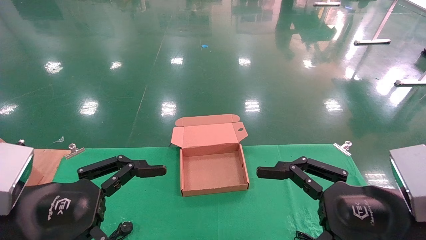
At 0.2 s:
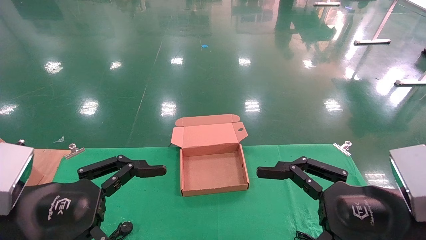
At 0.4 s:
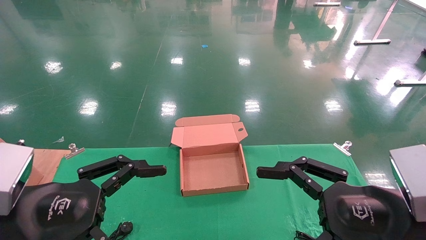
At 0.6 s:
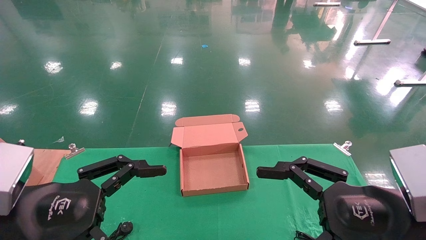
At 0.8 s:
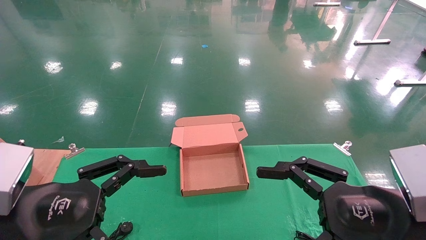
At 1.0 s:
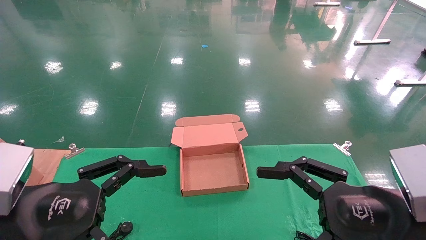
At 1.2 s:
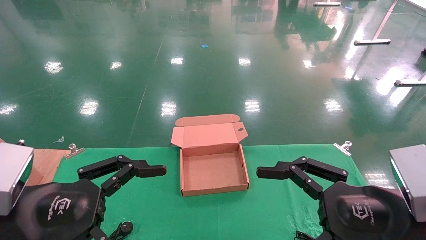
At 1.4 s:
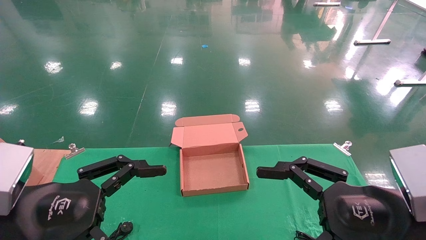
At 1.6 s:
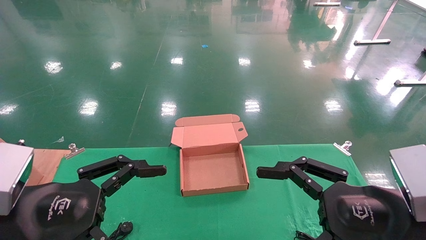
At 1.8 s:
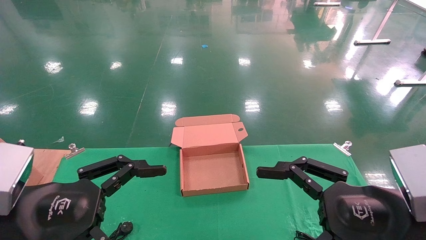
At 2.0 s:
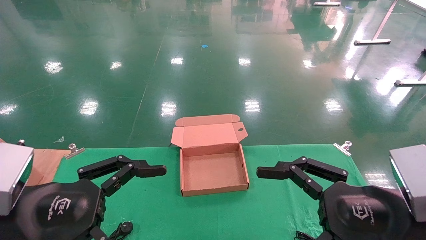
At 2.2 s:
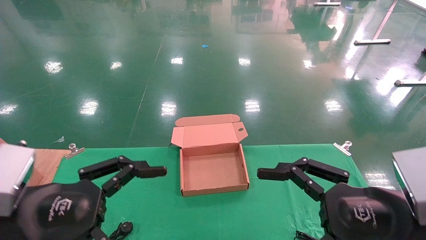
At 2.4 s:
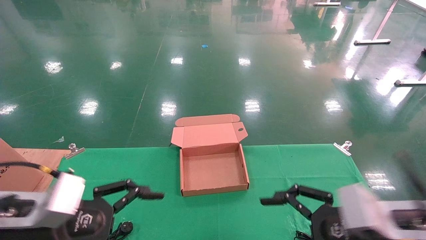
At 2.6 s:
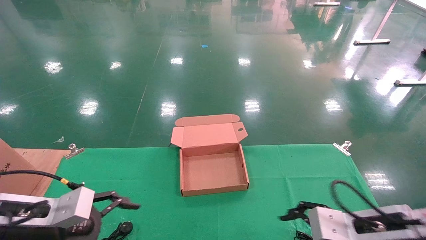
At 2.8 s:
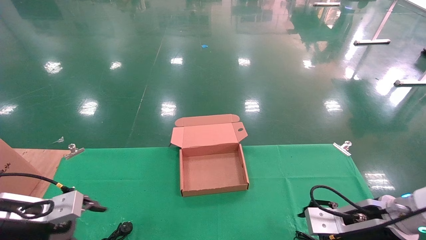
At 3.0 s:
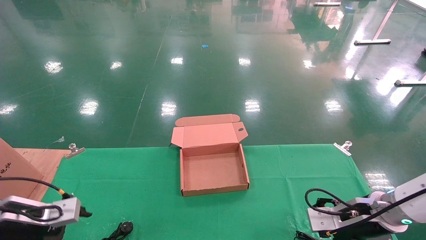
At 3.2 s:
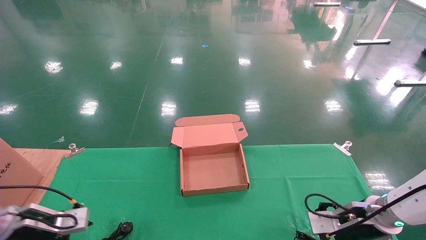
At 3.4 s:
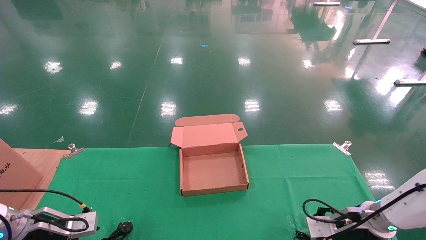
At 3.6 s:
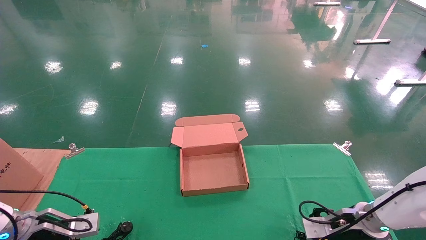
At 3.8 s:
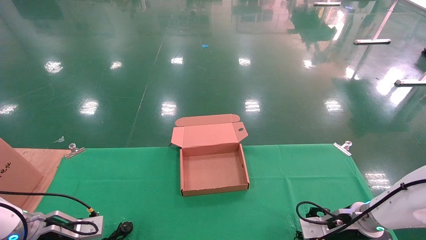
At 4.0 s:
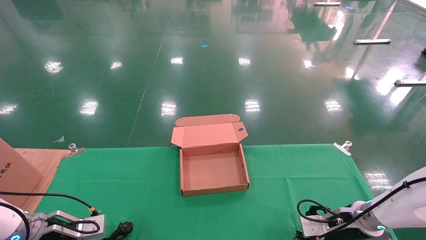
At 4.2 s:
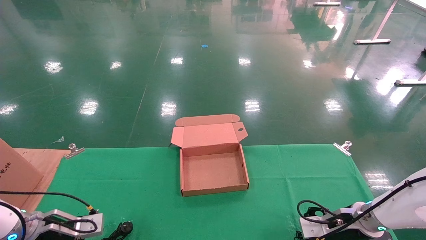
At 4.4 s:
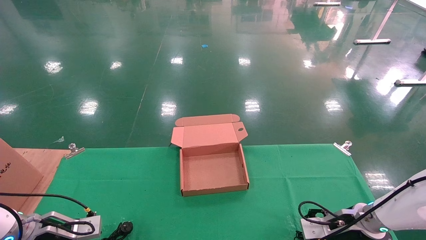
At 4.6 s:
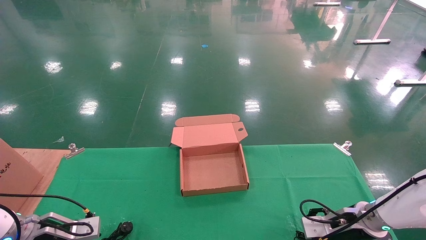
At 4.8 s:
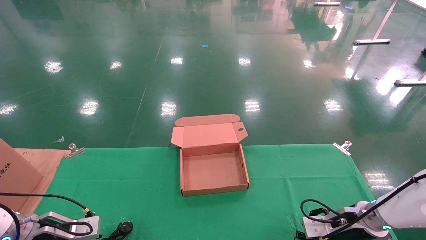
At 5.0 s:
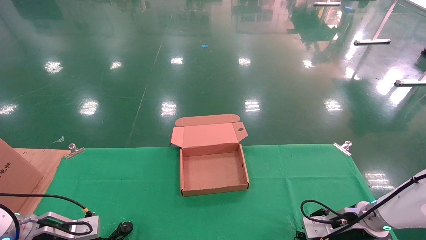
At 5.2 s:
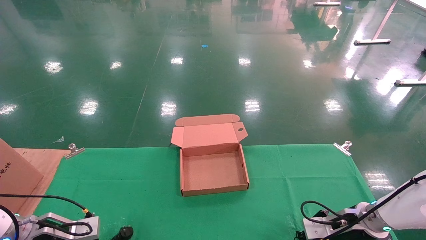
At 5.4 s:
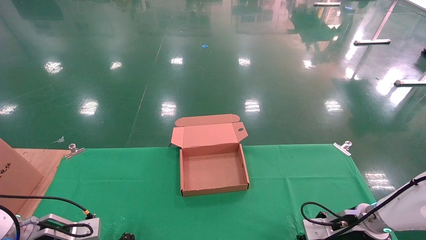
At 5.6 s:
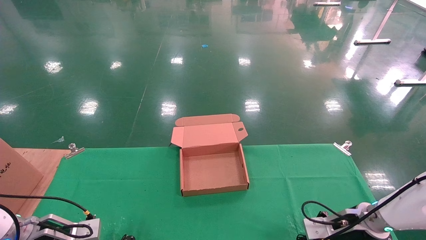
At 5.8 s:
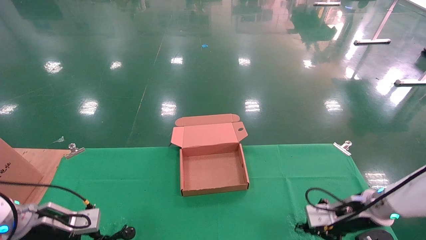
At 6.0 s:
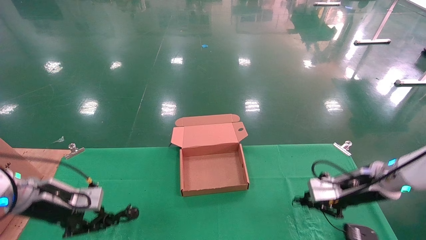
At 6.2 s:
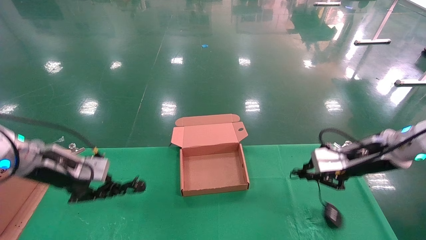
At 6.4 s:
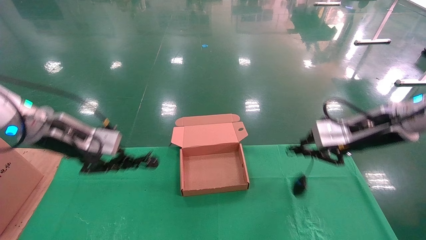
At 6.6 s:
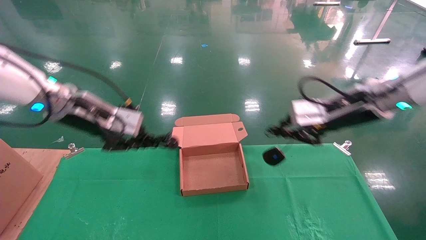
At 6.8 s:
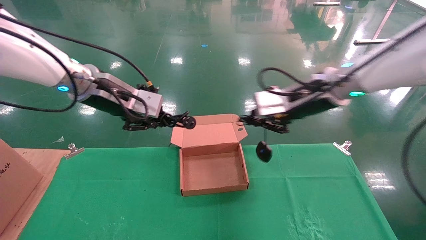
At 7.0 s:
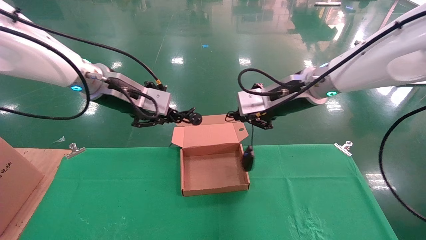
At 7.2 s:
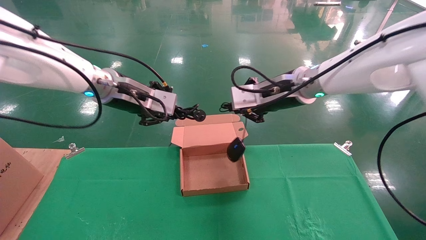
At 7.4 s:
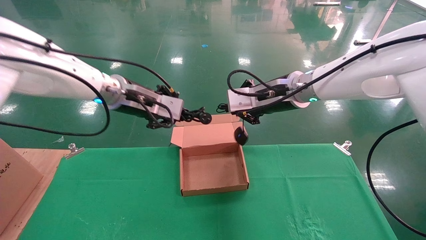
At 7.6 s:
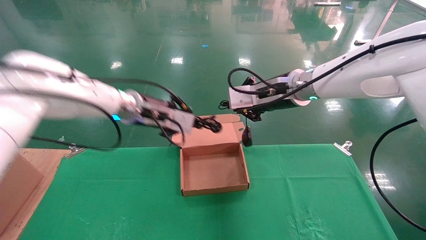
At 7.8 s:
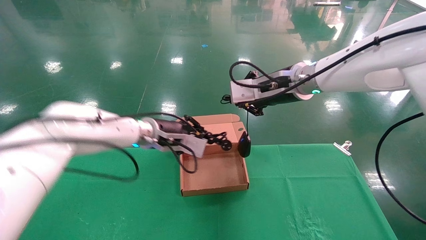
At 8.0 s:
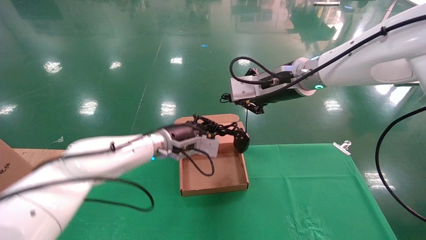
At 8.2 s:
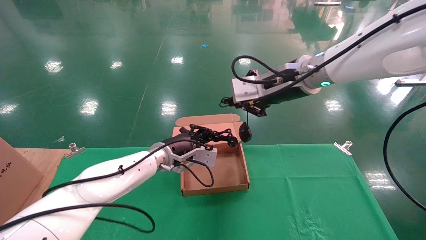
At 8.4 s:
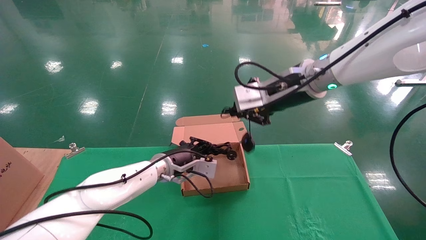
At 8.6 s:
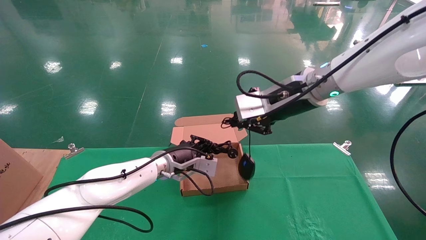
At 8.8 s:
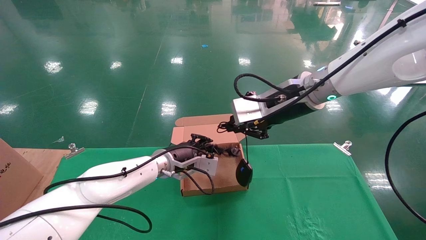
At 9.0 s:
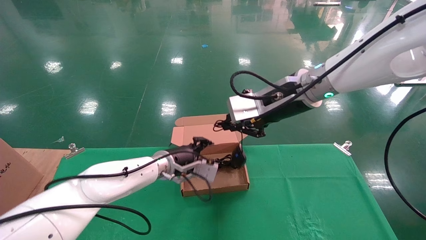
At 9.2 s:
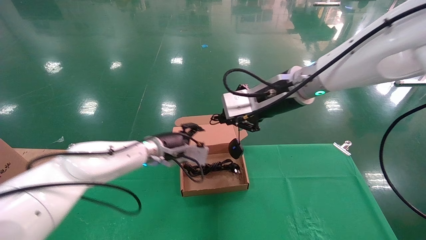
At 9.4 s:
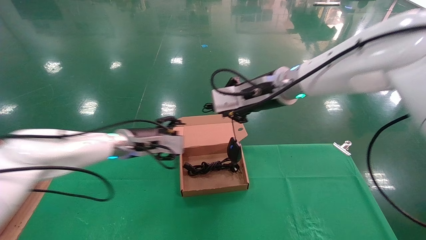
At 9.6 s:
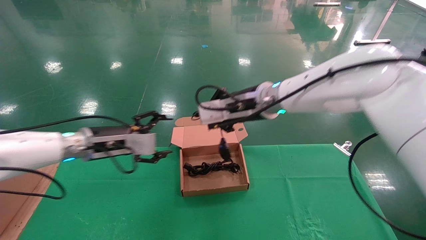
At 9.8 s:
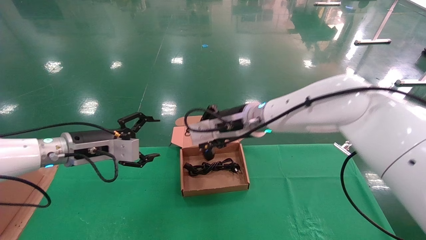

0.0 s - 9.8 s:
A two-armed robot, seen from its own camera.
Step, 2.4 s - 5.8 s: Grab and lift both the mouse and power cord from the accessory packaging area at the same time.
0.0 s - 1.4 s: Both grippers stay put.
1.4 s - 2.8 s: The right gripper heads forward and downward, covering roughly 15 cm. The left gripper shifts some 20 cm forward, to the left and downward.
2.8 s - 4.2 s: The left gripper moves downward and forward, roughly 10 cm, while the right gripper goes approximately 10 cm forward and downward.
4.2 s - 5.6 s: The right gripper closes its fingers. Meanwhile the left gripper closes up.
5.6 s - 7.0 s: The right gripper travels upward and to the left by some 30 cm. The left gripper shifts approximately 35 cm upward and to the right.
7.0 s - 8.4 s: The left gripper goes roughly 20 cm downward and to the right.
8.4 s - 9.8 s: The right gripper goes roughly 10 cm to the left and downward. Meanwhile the left gripper shifts roughly 20 cm to the left and backward, and opens.

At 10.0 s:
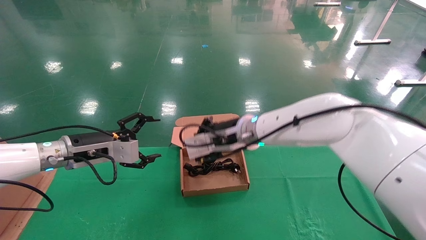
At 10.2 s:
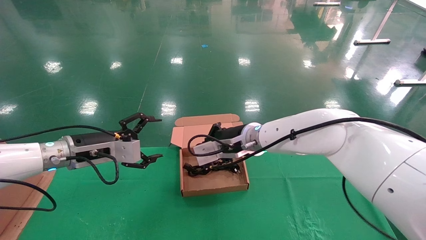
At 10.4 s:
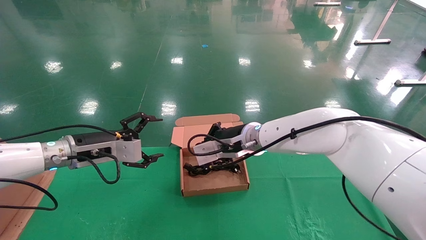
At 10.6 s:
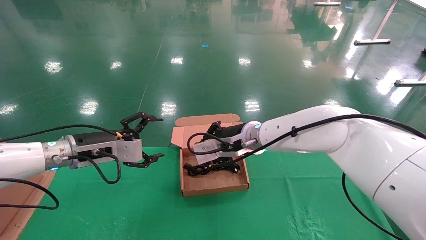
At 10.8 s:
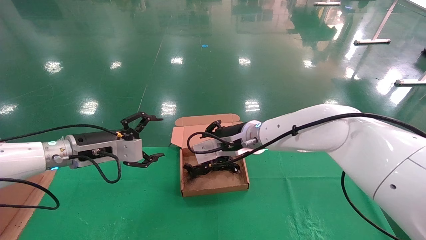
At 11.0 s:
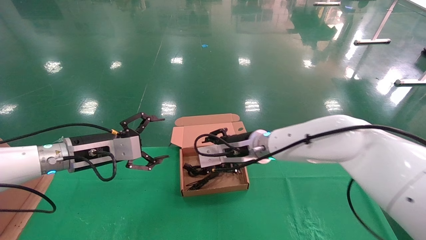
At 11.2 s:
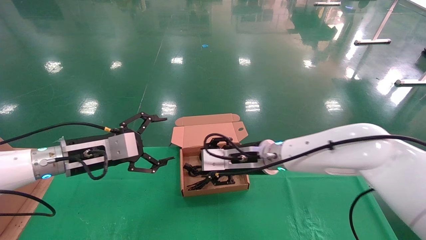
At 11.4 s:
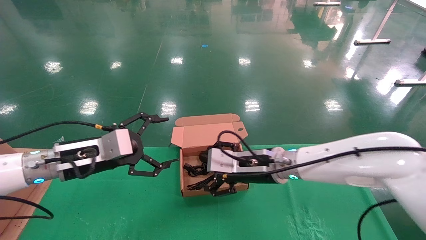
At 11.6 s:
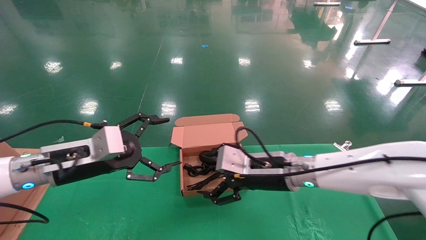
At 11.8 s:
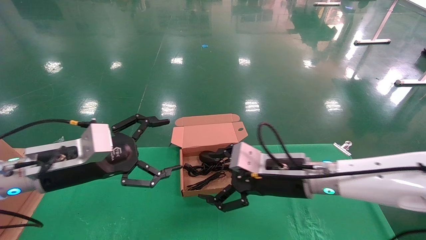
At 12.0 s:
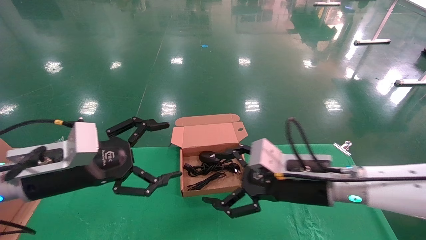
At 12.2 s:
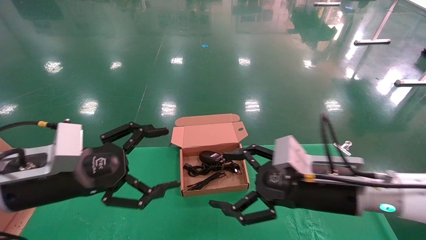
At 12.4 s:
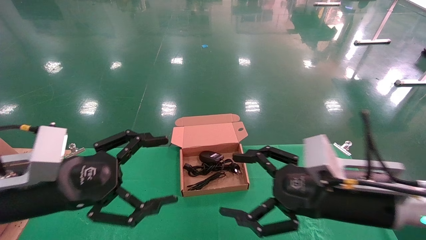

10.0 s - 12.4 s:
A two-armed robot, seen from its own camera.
10.0 s - 11.2 s: The right gripper shifts roughly 5 cm downward, and opens up.
11.2 s - 12.4 s: The left gripper travels backward by some 15 cm. Meanwhile the right gripper shifts roughly 20 cm backward and to the right, and opens up.

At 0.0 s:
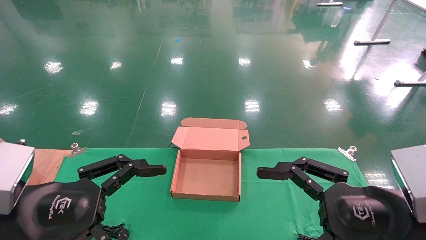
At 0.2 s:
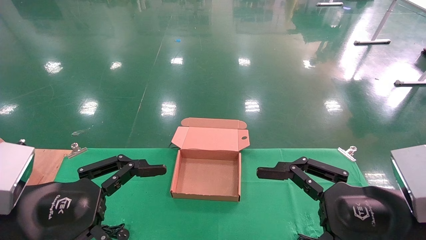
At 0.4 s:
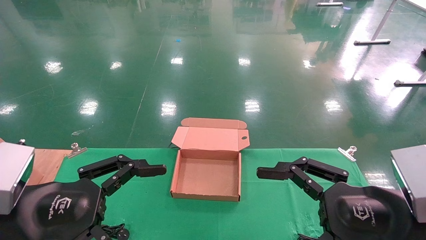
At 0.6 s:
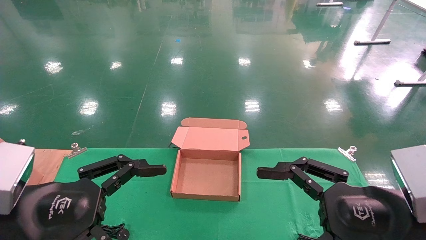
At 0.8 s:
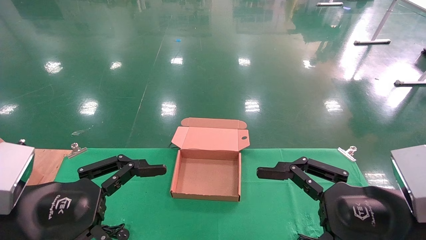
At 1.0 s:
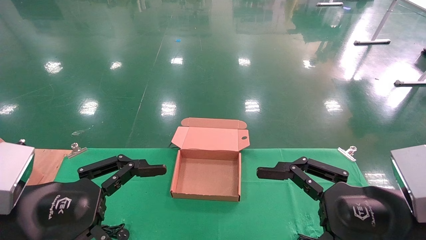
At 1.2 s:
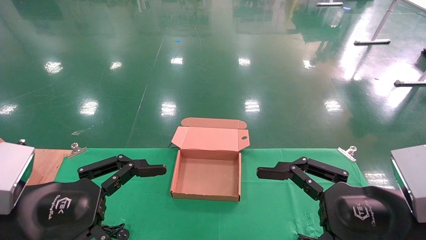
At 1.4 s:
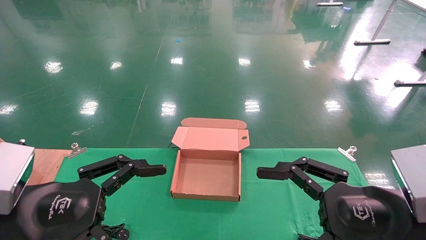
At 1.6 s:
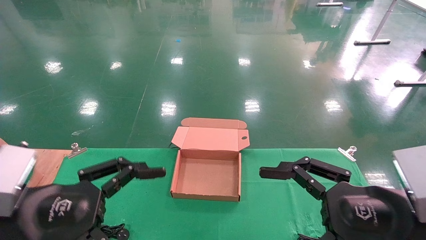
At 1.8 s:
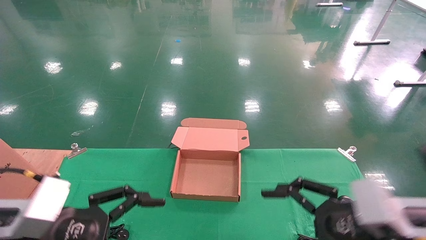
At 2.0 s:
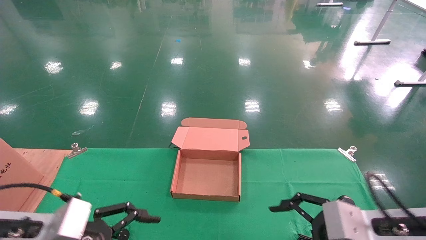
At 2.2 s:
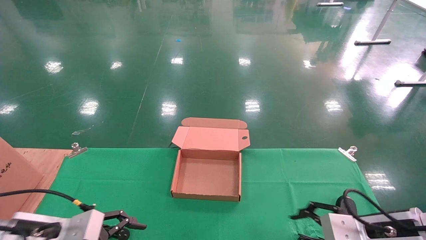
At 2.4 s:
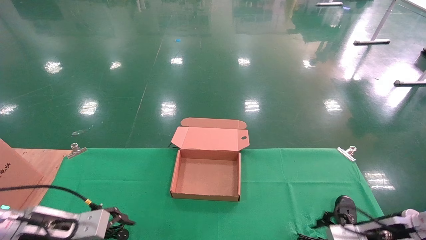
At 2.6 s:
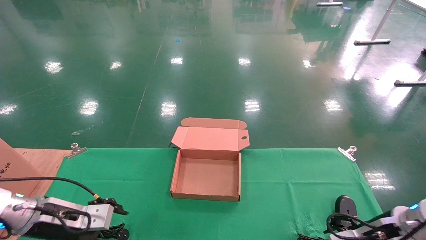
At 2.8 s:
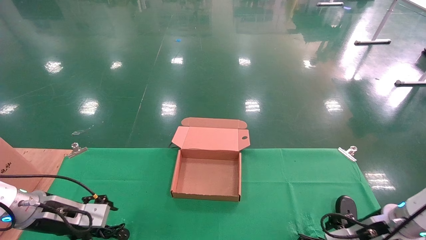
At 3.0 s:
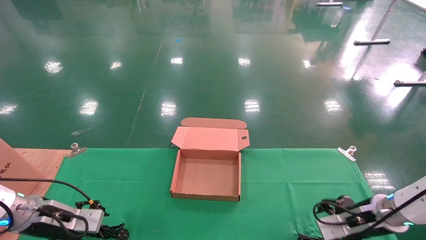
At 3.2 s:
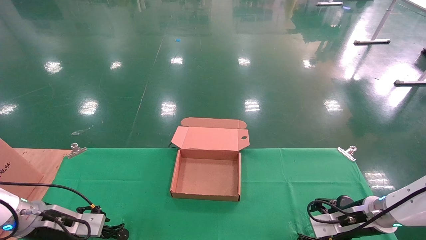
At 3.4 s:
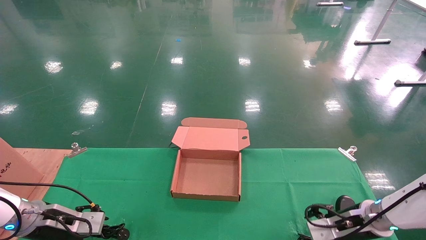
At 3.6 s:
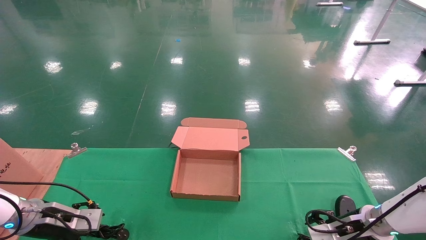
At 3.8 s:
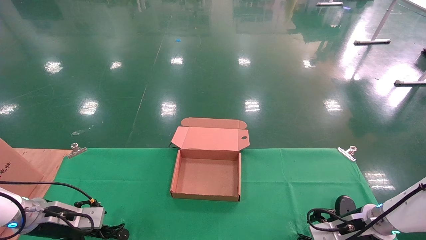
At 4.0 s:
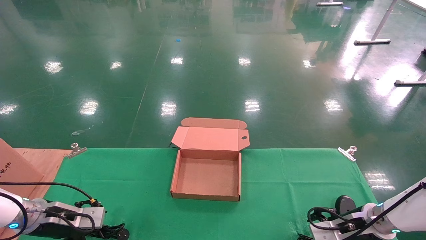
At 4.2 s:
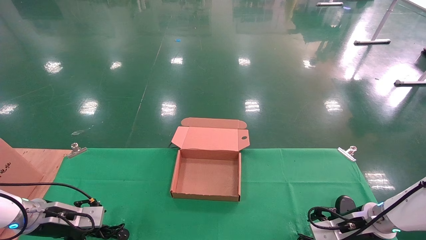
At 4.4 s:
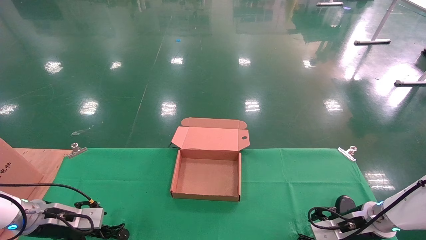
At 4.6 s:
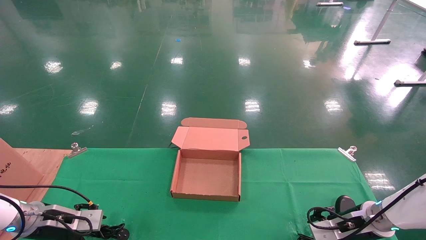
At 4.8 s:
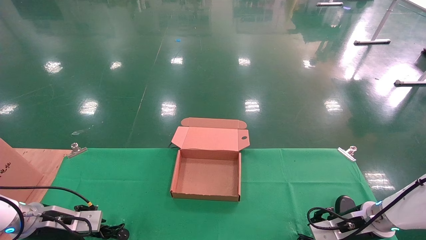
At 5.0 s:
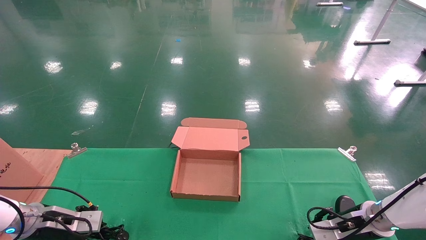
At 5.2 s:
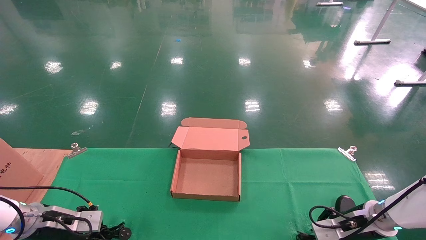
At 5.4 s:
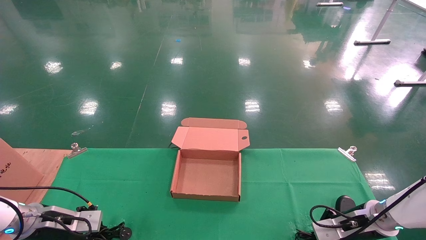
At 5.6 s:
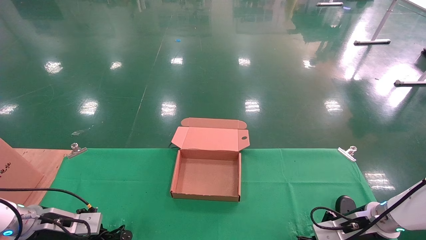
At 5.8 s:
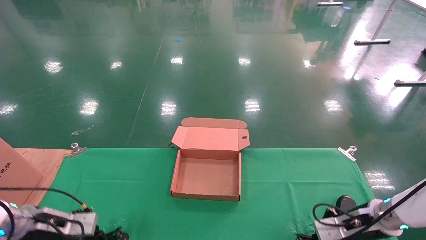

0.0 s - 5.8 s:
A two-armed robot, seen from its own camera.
Step, 1.8 s - 5.8 s: Grab and lift both the mouse and power cord from the accessory packaging area at the same time.
0.0 s - 1.4 s: Both grippers stay put.
1.4 s - 2.8 s: The right gripper moves forward, downward and to the right, about 25 cm, while the left gripper moves forward, downward and to the left, roughly 25 cm.
2.8 s - 4.4 s: The left gripper shifts by roughly 5 cm, while the right gripper moves about 5 cm.
4.4 s - 5.8 s: The left gripper closes its fingers. The right gripper closes up.
